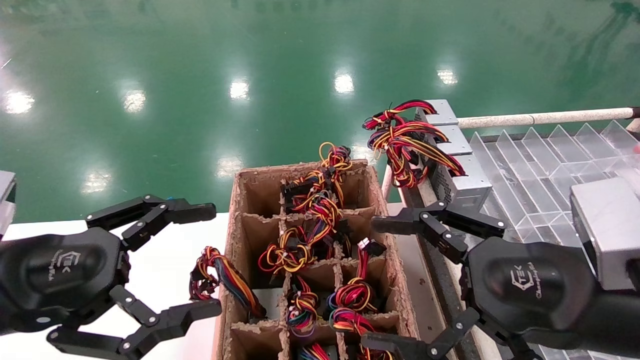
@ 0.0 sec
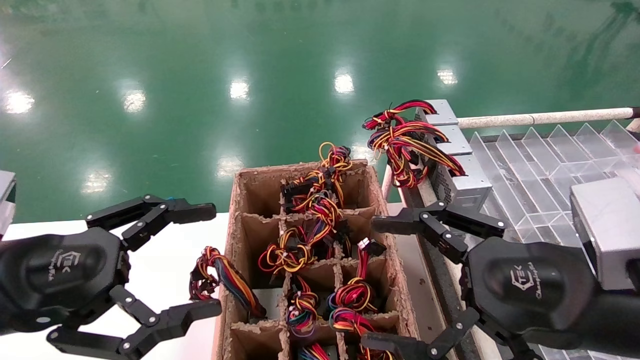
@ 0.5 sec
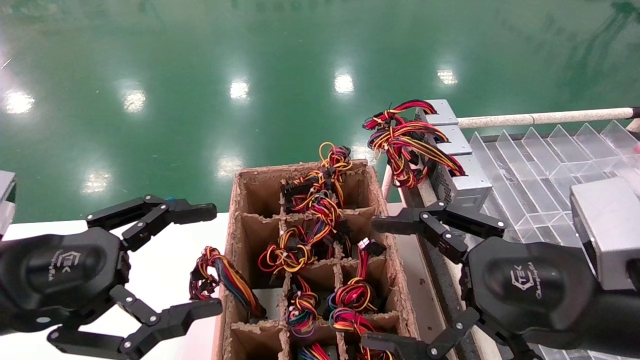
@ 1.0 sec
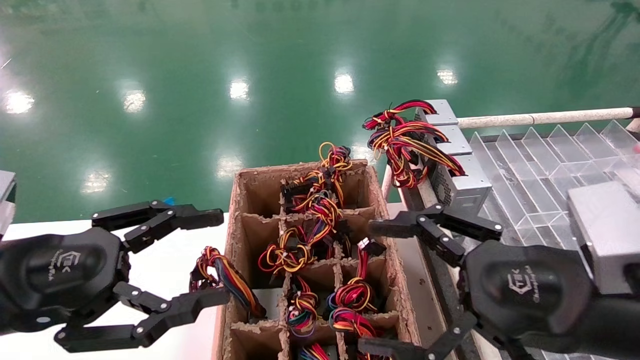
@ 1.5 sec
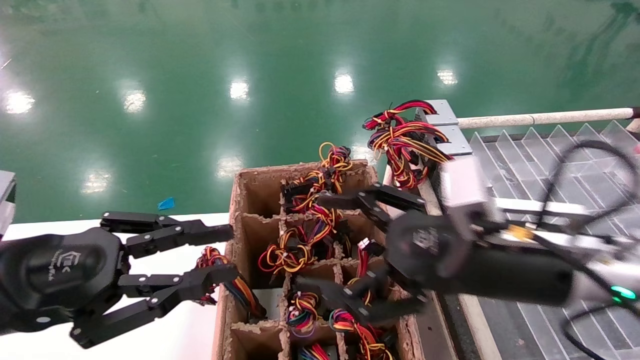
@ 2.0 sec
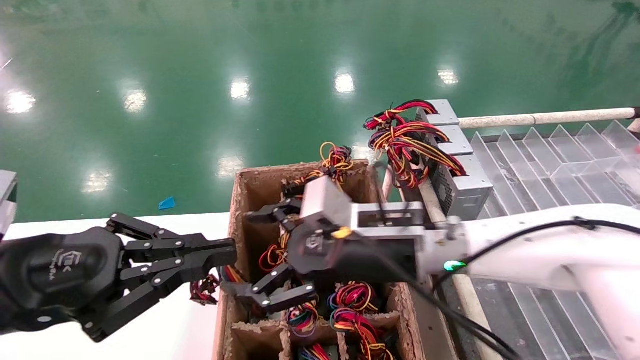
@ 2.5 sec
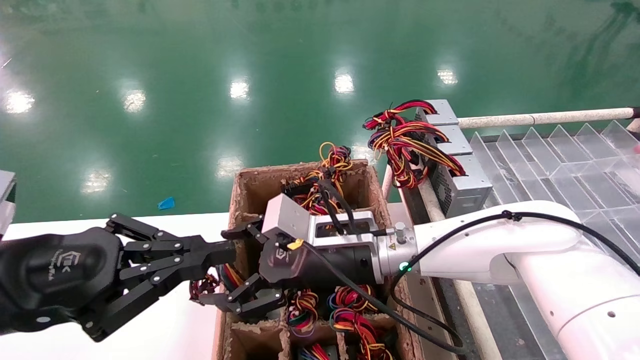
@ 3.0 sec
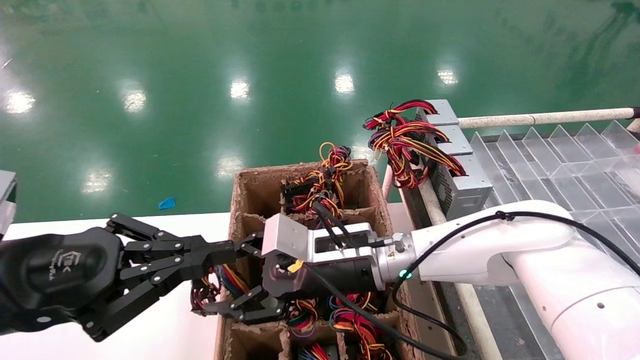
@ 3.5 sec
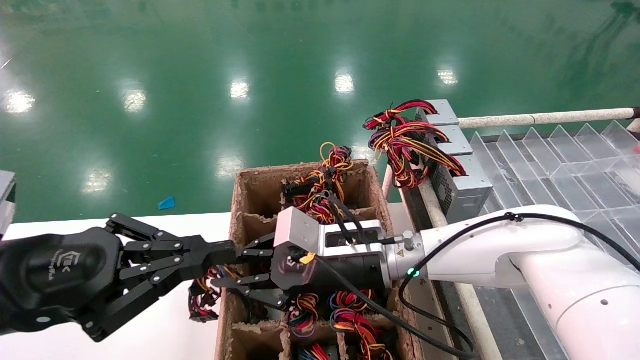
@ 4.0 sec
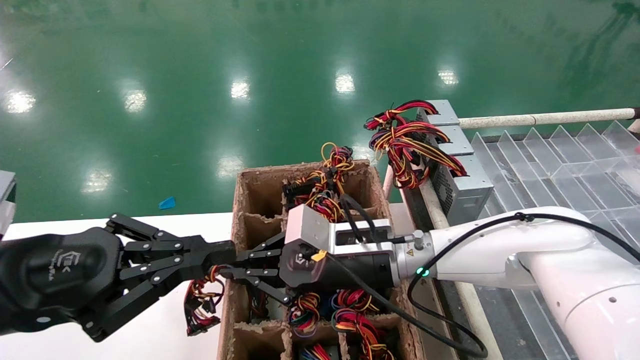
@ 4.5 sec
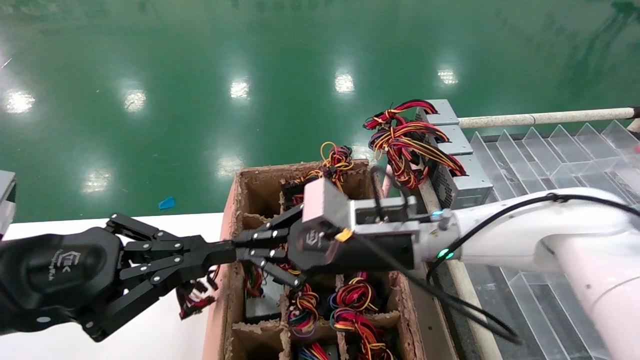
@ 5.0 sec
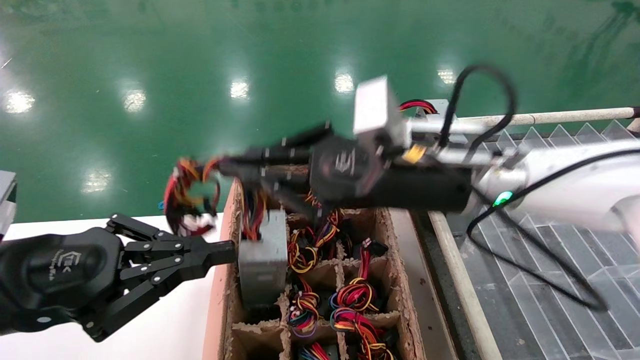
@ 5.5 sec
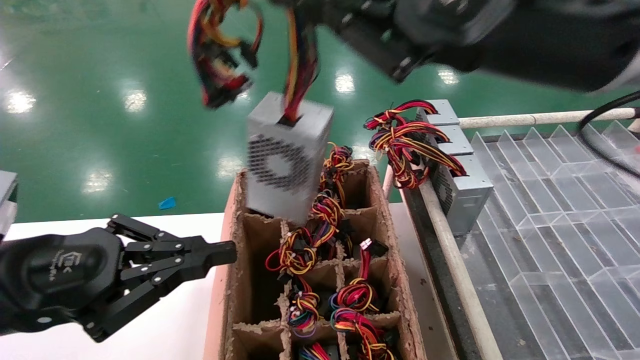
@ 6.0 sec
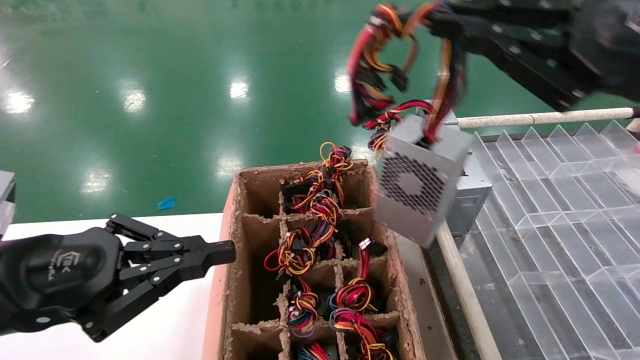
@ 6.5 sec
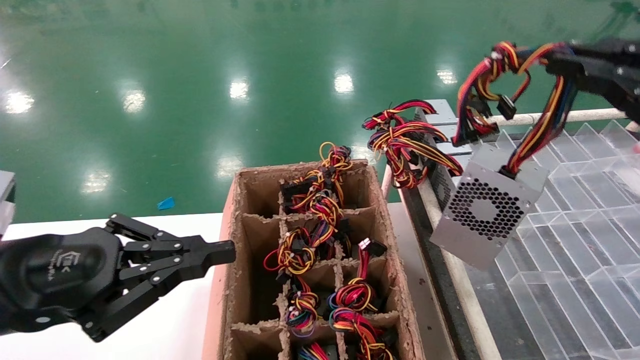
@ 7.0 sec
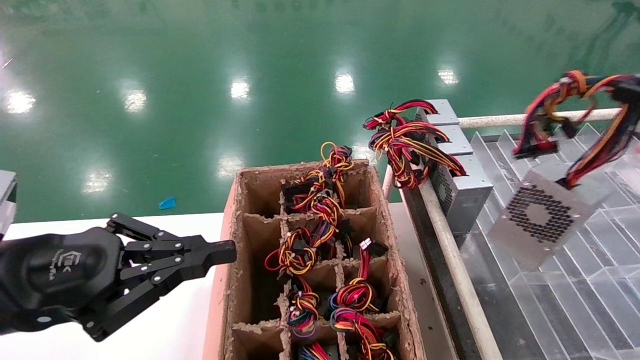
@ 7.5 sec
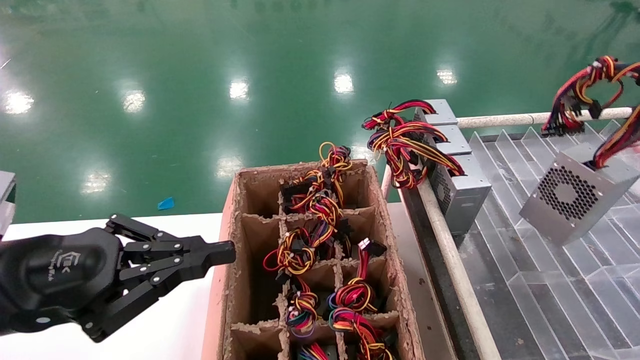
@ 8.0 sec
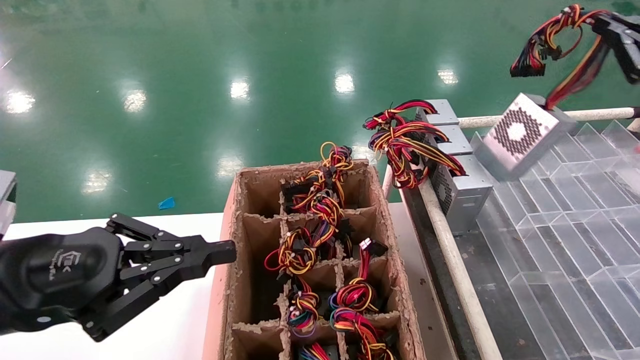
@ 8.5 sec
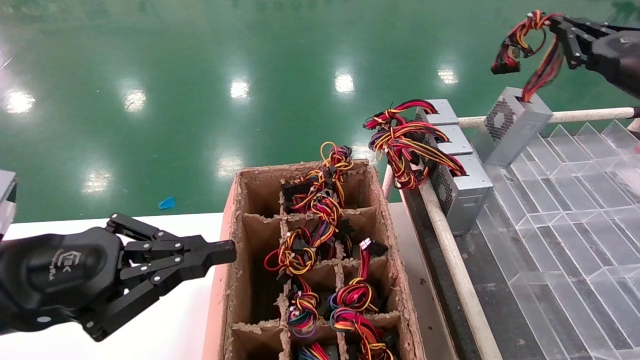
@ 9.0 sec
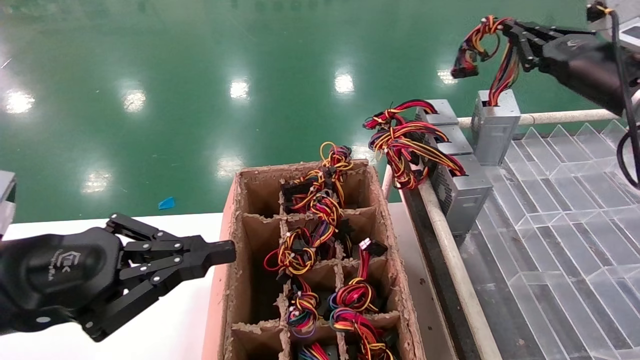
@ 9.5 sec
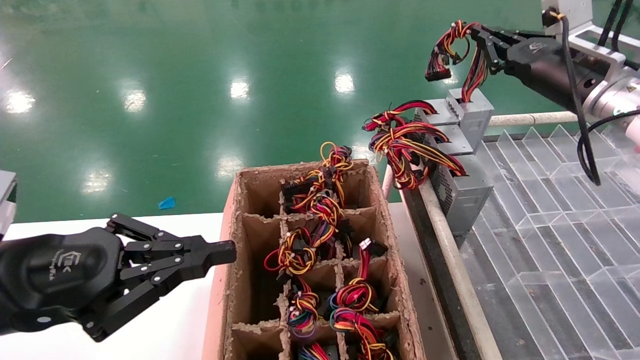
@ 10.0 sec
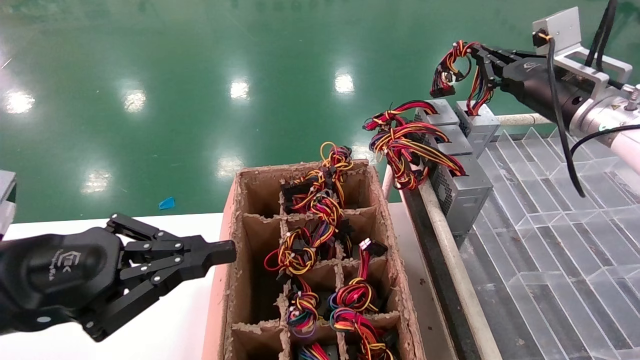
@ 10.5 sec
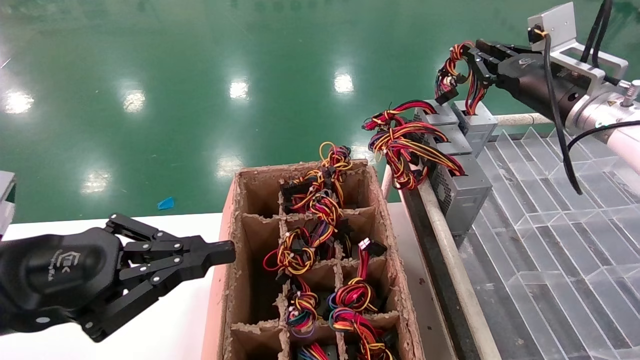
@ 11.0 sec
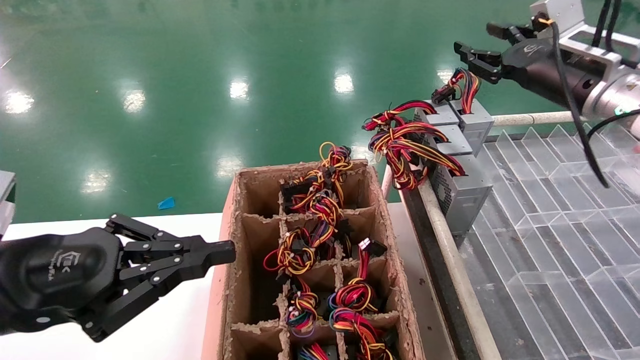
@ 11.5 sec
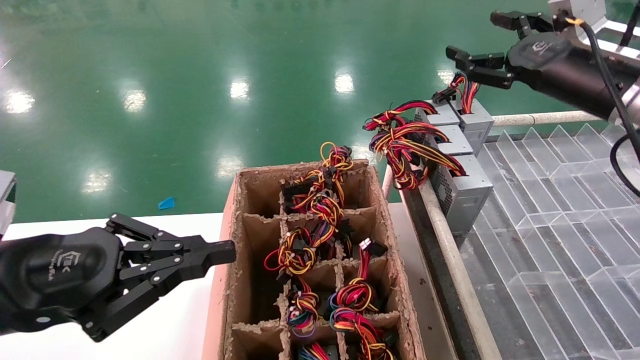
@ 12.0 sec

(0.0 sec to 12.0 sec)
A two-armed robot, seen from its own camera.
Step, 2.0 sec - 4.0 sec: Grab the main unit power supply from the containment box.
Step, 4.5 sec - 11.5 sec: Place the main unit power supply in the designated area.
0.0 sec - 2.0 sec: The right gripper moves forward and to the left, approximately 10 cm. Meanwhile the left gripper closes its fingers.
2.0 sec - 4.0 sec: The left gripper closes up. Meanwhile the right gripper goes about 20 cm to the left, forward and downward, and closes its fingers.
4.0 sec - 6.0 sec: The right gripper shifts approximately 30 cm upward, to the right and backward.
6.0 sec - 8.0 sec: The right gripper travels to the right by some 30 cm.
8.0 sec - 10.0 sec: The right gripper goes about 25 cm forward and to the left.
10.0 sec - 12.0 sec: The right gripper opens up.

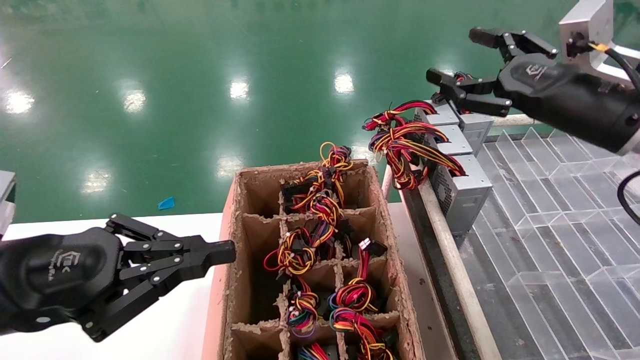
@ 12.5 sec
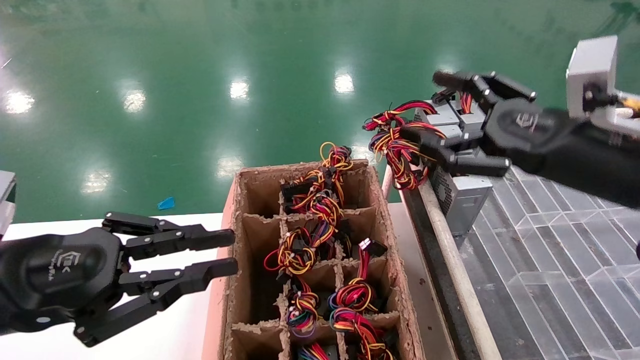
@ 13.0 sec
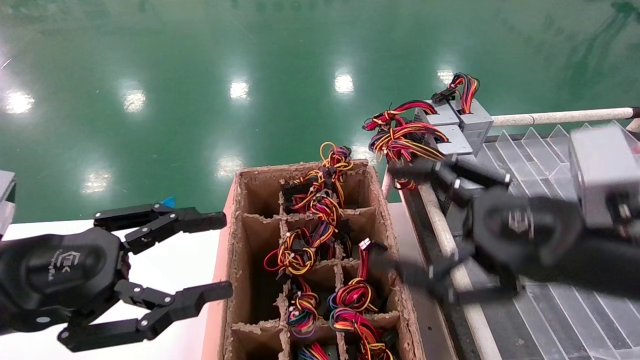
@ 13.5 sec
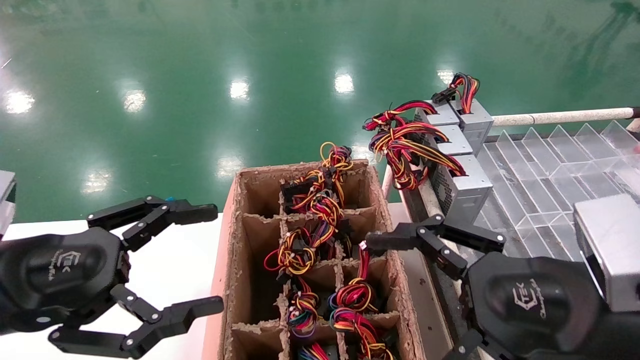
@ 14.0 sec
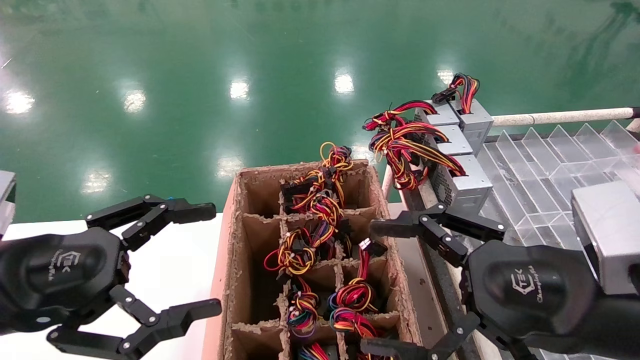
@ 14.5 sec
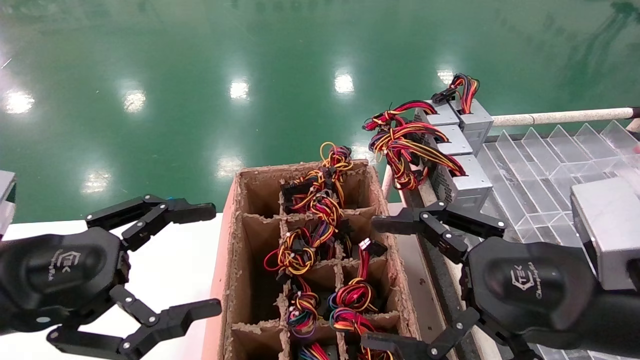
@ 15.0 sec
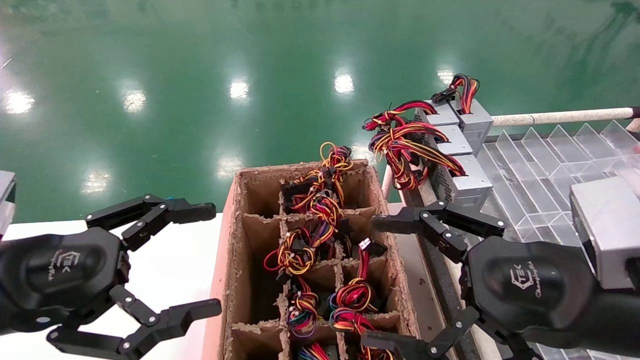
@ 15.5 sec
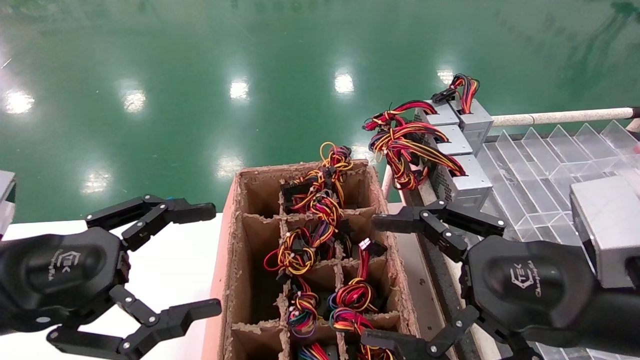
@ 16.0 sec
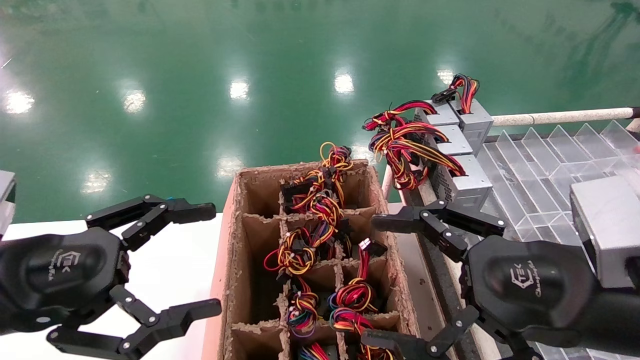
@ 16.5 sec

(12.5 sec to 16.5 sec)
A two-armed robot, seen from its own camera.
12.5 sec - 14.5 sec: The right gripper travels backward, downward and to the left by roughly 20 cm. The left gripper opens up.
14.5 sec - 16.5 sec: Neither gripper changes place.
